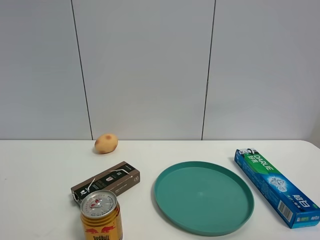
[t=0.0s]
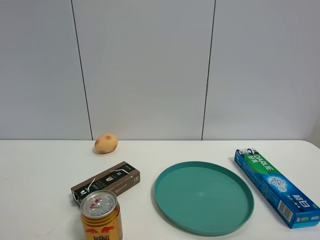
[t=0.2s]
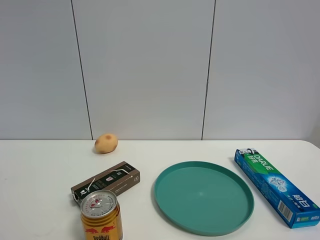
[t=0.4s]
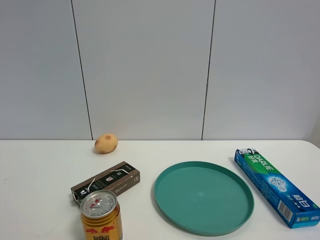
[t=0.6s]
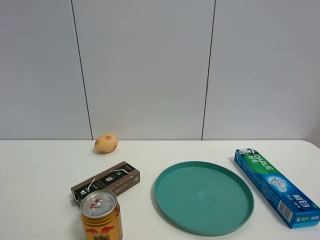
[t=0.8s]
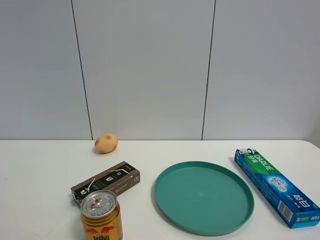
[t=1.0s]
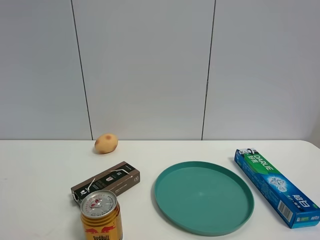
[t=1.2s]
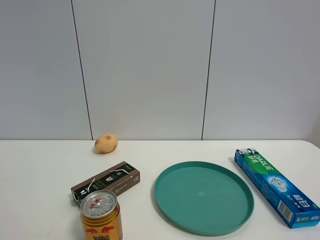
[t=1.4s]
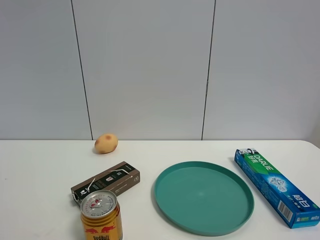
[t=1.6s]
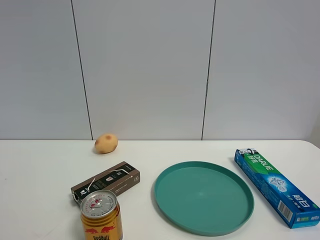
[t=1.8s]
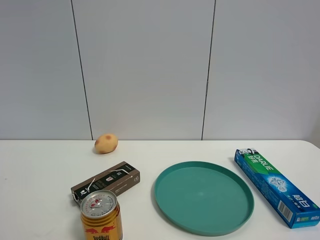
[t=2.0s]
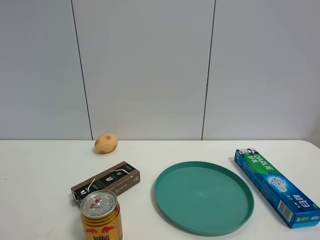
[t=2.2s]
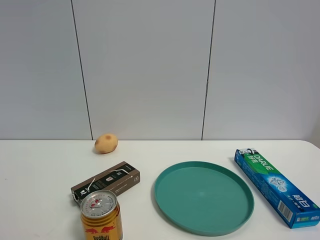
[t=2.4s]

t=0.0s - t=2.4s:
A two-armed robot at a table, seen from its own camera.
Task of the whole recording: the gripper move the object.
t=1.2s - t=2.4s: Both grippers stay about where they are.

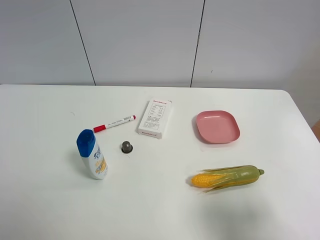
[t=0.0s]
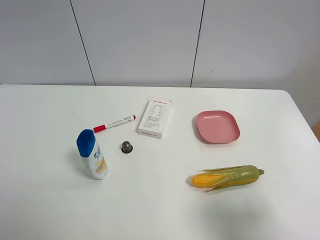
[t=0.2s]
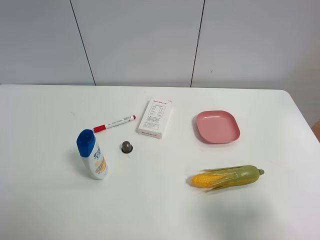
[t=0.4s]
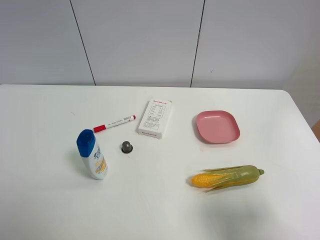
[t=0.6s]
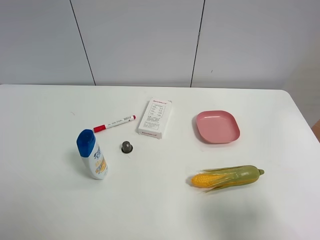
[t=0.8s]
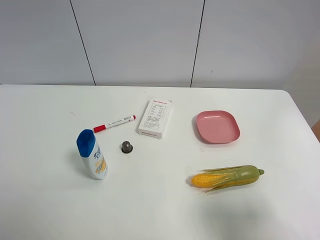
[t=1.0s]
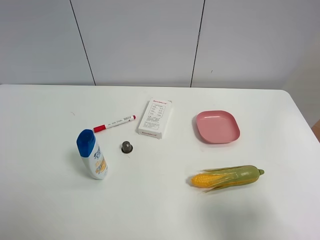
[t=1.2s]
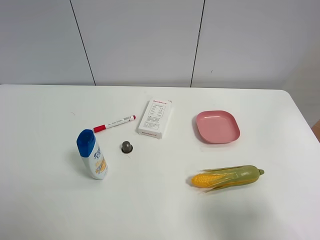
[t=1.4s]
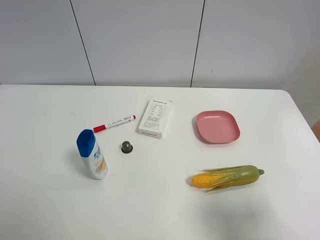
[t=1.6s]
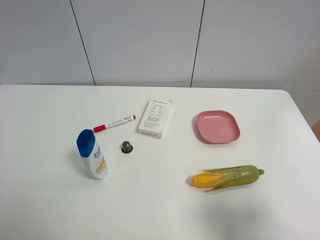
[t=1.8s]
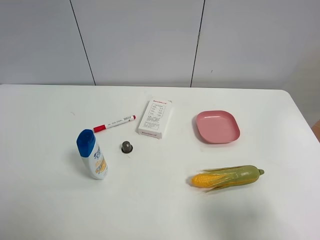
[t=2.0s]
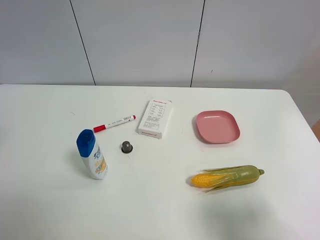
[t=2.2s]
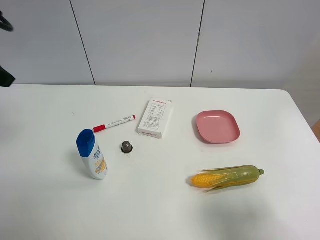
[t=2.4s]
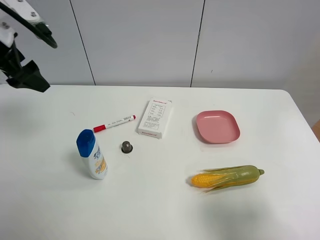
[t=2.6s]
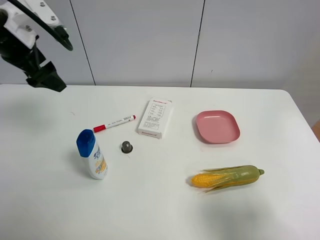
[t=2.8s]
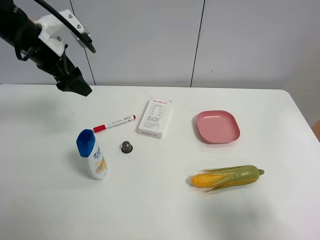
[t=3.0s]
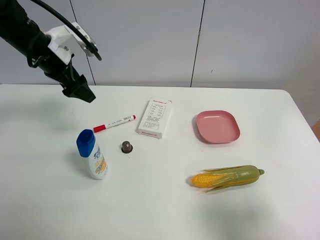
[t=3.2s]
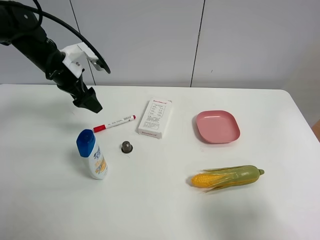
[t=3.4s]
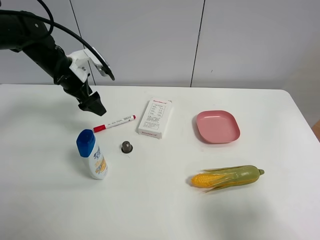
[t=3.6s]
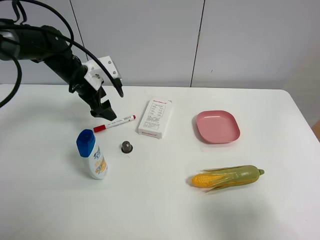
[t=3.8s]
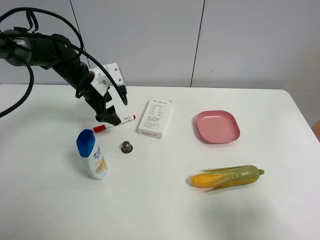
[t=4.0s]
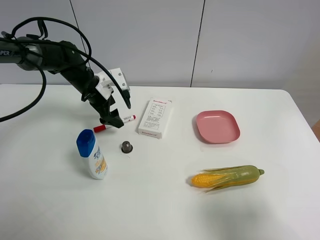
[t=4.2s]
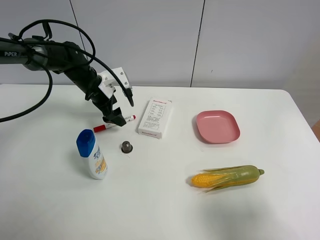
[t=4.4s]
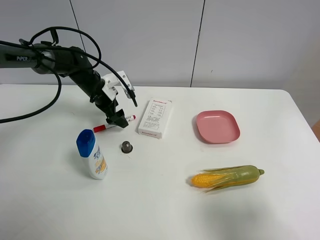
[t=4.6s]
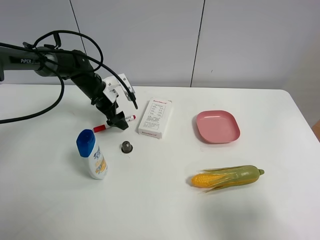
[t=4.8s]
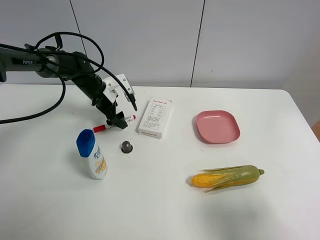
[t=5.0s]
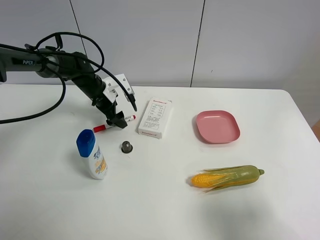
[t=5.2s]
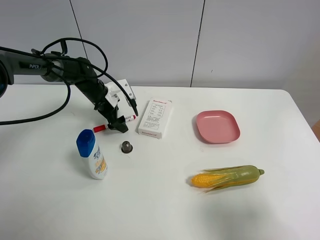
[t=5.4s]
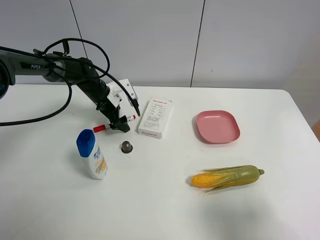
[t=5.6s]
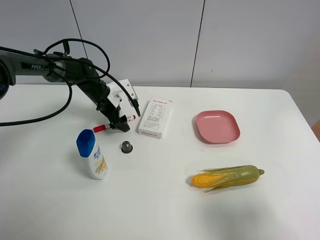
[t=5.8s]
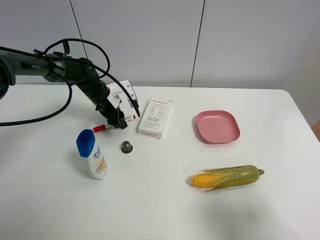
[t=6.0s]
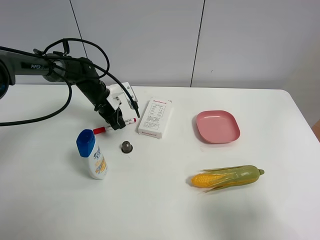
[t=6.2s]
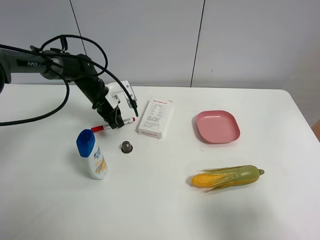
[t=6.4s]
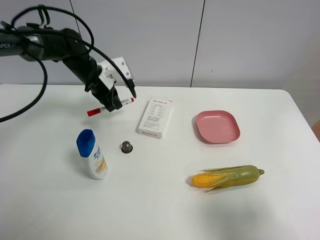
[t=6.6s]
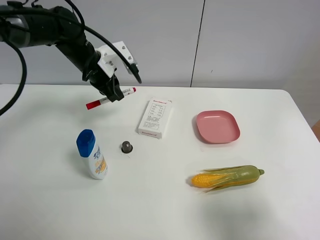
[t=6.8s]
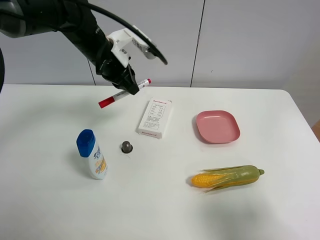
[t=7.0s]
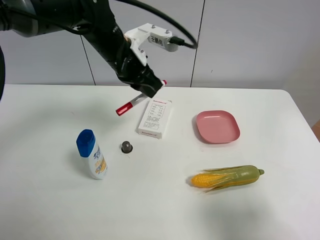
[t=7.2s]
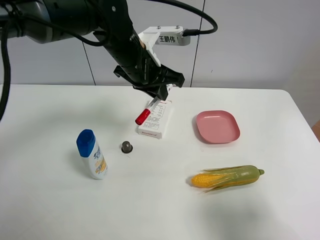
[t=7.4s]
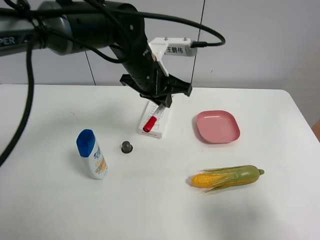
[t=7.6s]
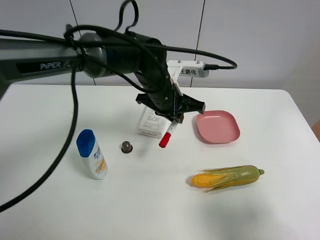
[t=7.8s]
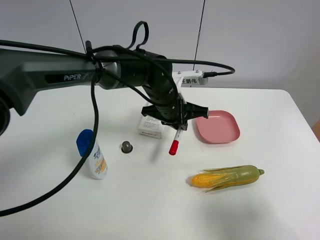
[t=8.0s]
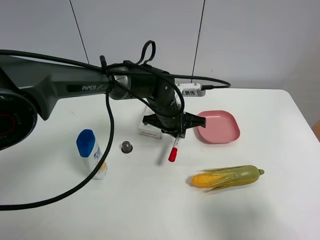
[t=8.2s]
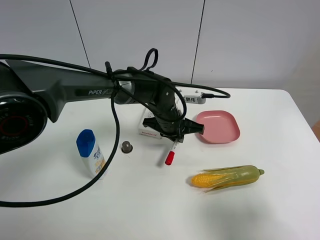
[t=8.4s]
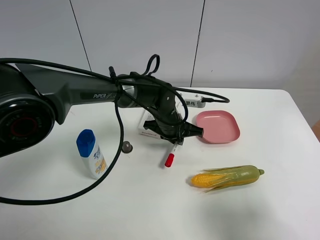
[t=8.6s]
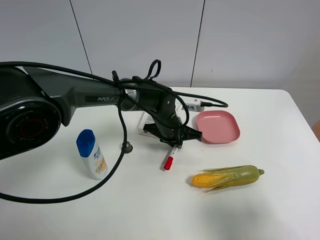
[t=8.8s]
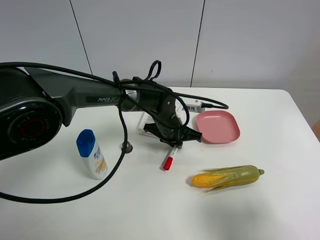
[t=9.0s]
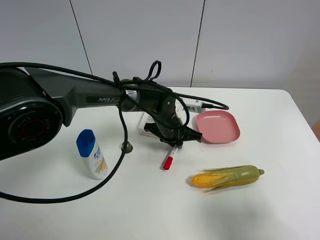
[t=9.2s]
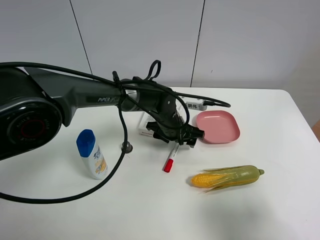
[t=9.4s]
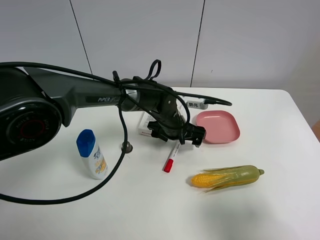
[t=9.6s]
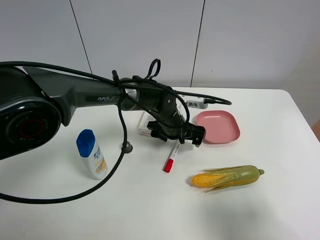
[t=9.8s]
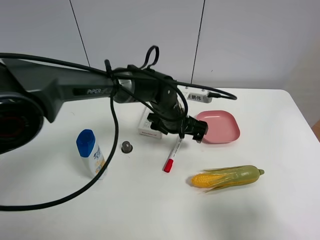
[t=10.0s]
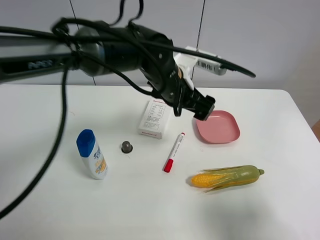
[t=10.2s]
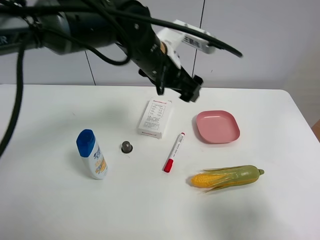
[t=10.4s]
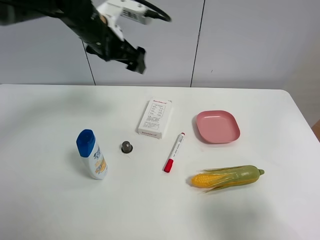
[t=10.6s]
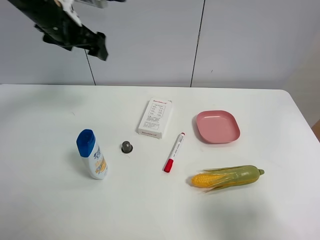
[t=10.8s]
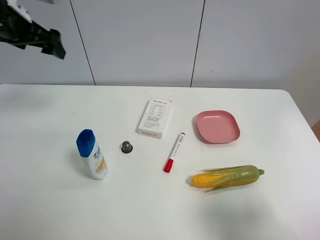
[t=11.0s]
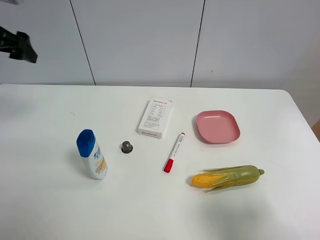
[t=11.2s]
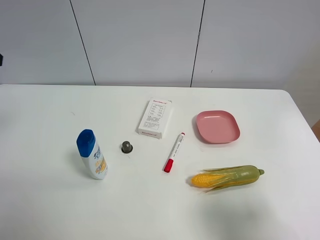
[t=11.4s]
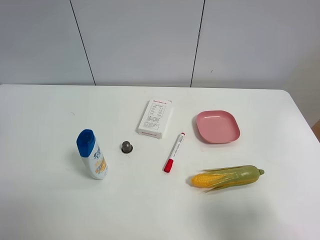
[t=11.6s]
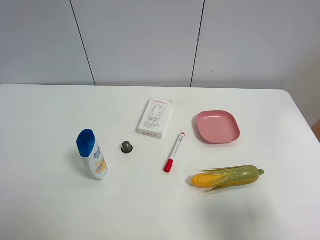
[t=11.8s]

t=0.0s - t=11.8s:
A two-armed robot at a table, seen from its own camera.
Task of the whole recording: the gripper move the object.
Step, t=0.0s - t=6.0s: Grasp the red marker pen with the left gripper.
Step, t=6.2s - t=9.4s: Place the red marker pen on the table with the left gripper.
t=0.0s - t=1.4s: Neither gripper changes place.
t=1.4s - t=3.0s: The left gripper moves forward, some 35 cm.
t=3.0s - t=4.4s: The left gripper heads downward and forward, covering about 15 cm.
t=4.4s - t=6.0s: The left gripper closes.
t=6.0s - t=7.4s: The left gripper moves upward, to the right and backward, roughly 25 cm.
t=7.4s - t=8.8s: The left gripper travels downward by about 20 cm.
t=8.8s - t=10.4s: The left gripper is displaced upward by approximately 20 cm, and opens its fingers.
t=10.4s - t=11.8s: The left gripper moves to the left and backward, roughly 40 cm.

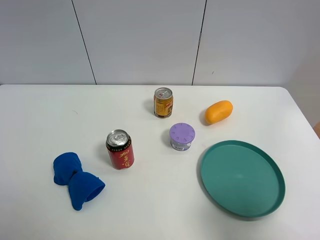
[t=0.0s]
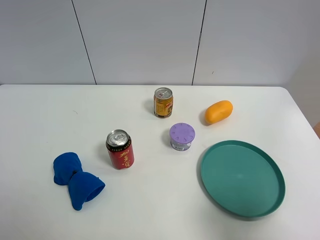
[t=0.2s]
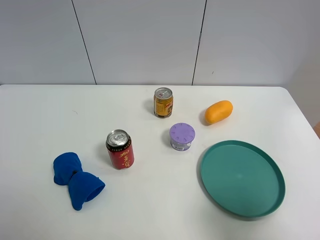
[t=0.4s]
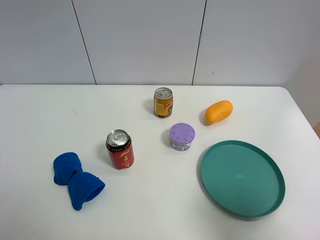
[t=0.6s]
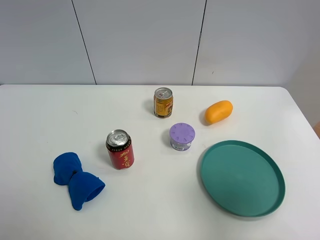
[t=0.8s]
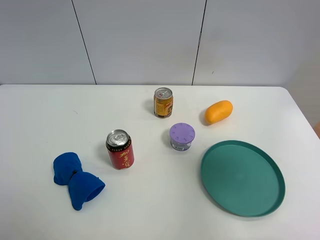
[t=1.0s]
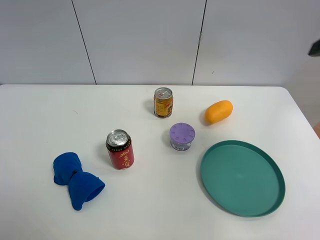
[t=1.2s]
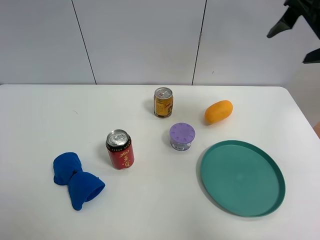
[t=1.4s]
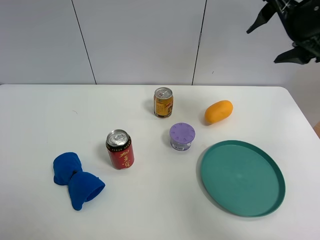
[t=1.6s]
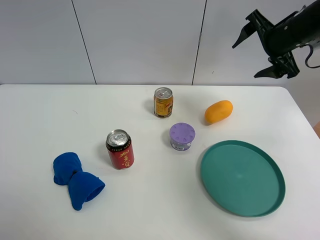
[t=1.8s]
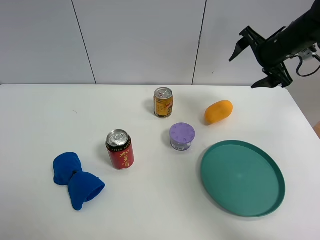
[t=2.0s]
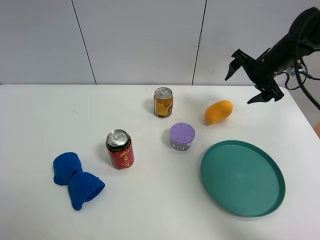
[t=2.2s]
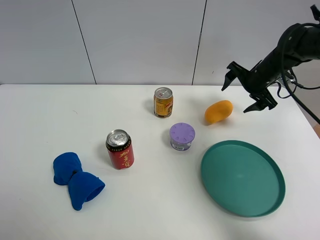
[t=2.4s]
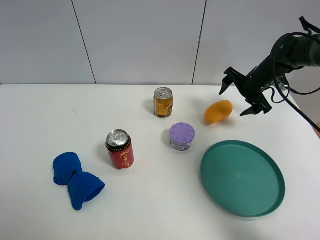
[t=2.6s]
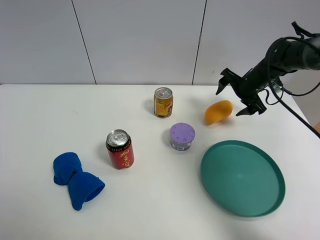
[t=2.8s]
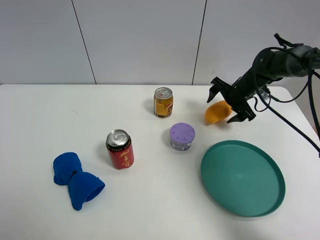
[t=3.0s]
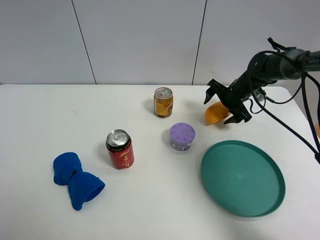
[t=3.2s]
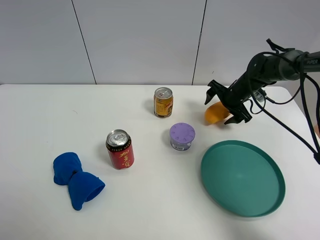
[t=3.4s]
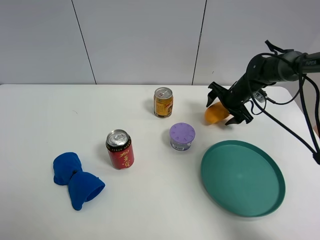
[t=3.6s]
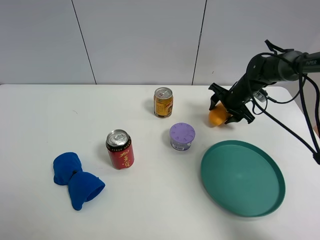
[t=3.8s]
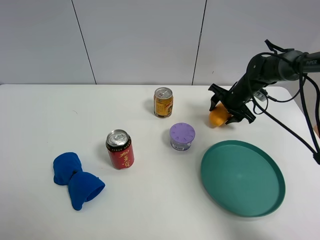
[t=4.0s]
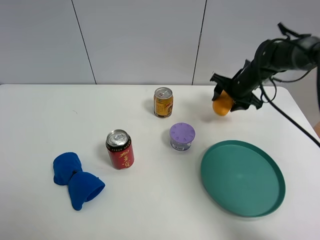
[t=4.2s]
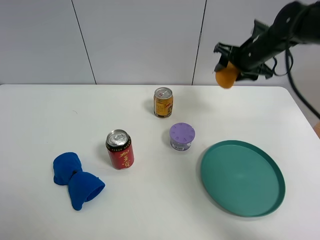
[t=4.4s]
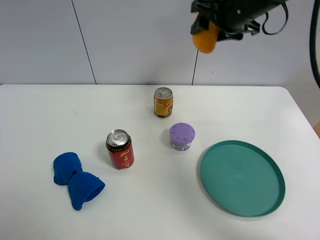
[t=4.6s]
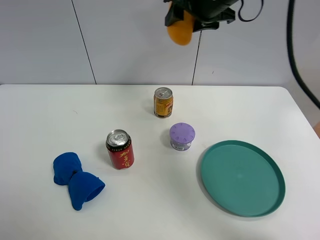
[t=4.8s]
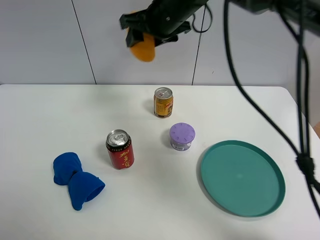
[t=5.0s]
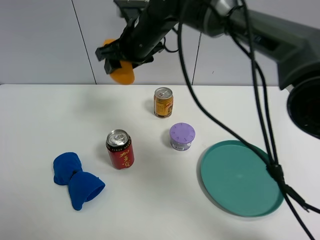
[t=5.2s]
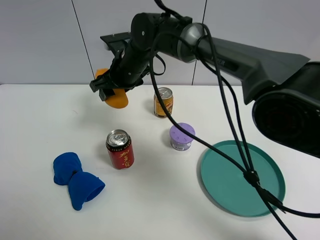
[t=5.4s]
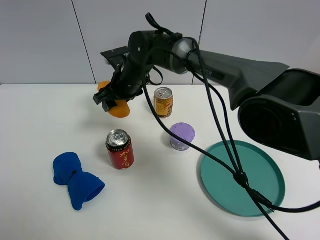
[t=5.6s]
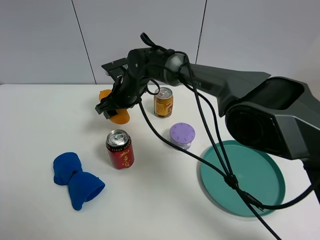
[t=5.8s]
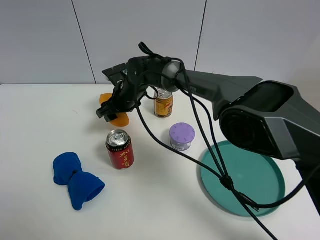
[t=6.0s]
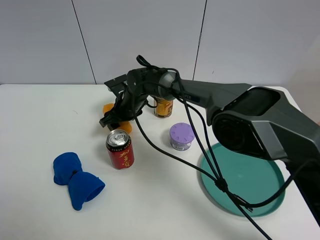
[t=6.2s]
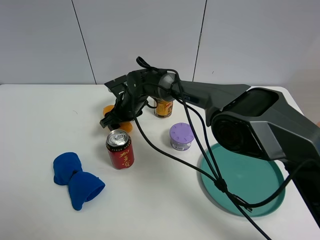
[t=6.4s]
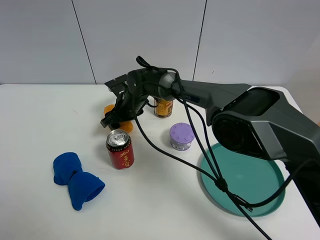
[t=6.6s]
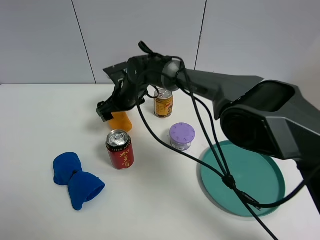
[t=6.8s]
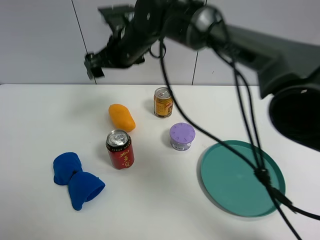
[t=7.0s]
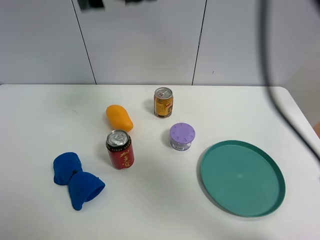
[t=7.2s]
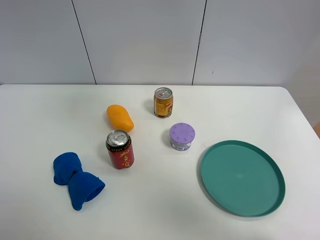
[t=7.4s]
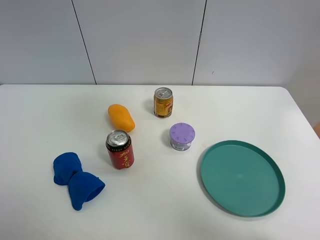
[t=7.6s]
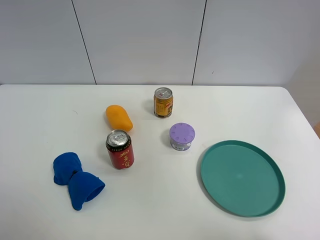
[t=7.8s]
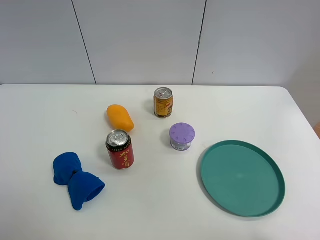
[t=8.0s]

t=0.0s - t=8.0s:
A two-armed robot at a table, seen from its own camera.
Task of the whole recording: the gripper move the object.
Step, t=0.0s - t=3.8s: Grasp the mango with the right gripper.
Step, t=4.0s - t=6.8s: Place the mango on the table with the right gripper.
t=0.0s - t=1.6s: The right gripper shifts some 35 cm forward.
t=1.6s - t=3.2s: The right gripper heads downward and forward, covering about 25 cm.
t=3.2s - t=4.8s: The right gripper moves upward and to the left, some 30 cm, and closes.
t=4.8s - t=6.4s: The right gripper heads downward and to the left, covering about 30 cm.
t=6.4s - t=8.0s: The right gripper moves upward, to the right and backward, roughly 70 cm, and opens up.
